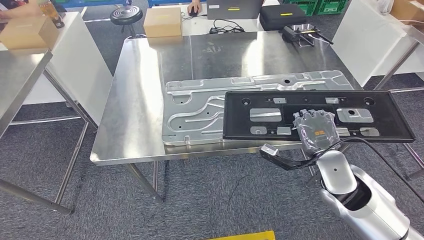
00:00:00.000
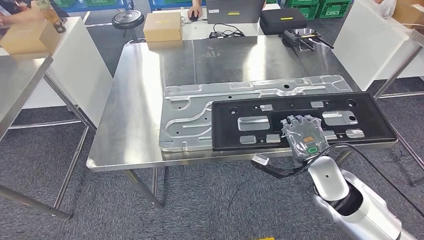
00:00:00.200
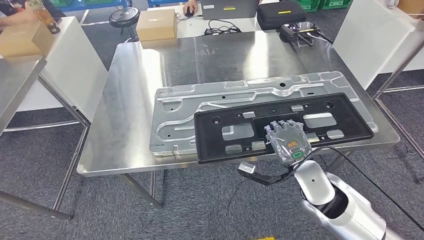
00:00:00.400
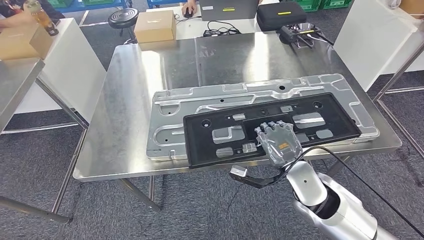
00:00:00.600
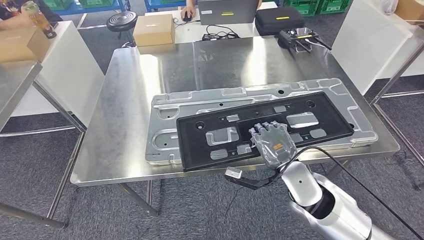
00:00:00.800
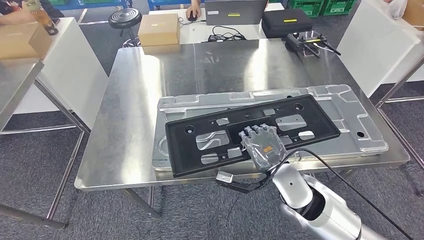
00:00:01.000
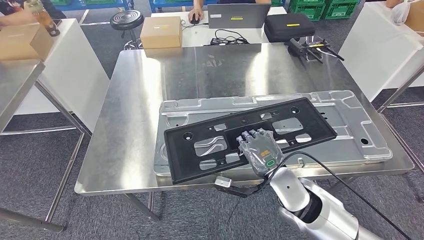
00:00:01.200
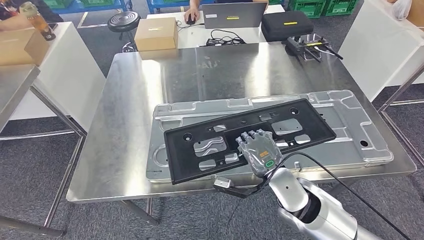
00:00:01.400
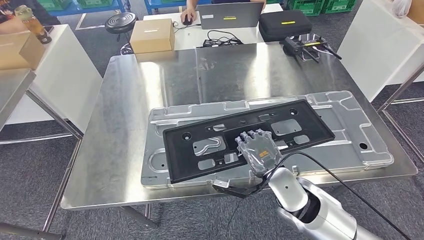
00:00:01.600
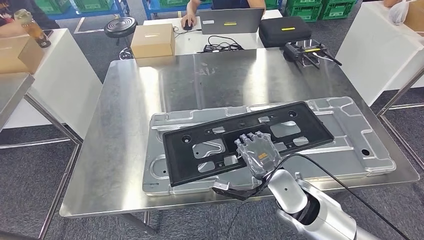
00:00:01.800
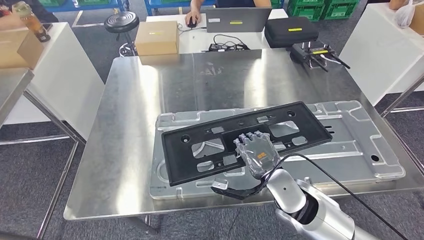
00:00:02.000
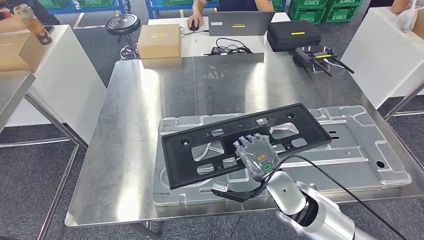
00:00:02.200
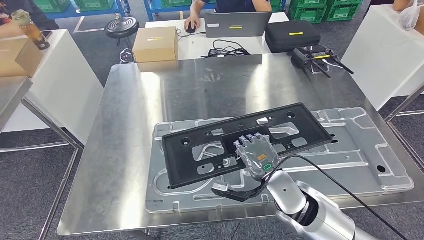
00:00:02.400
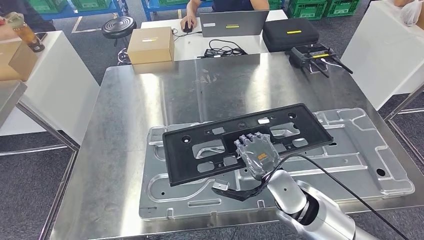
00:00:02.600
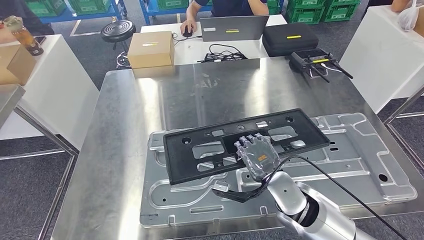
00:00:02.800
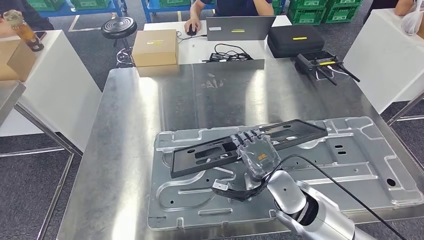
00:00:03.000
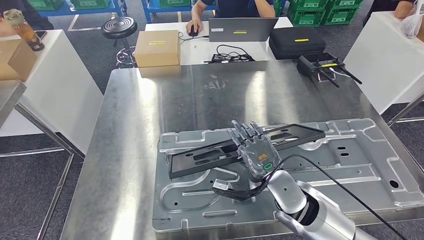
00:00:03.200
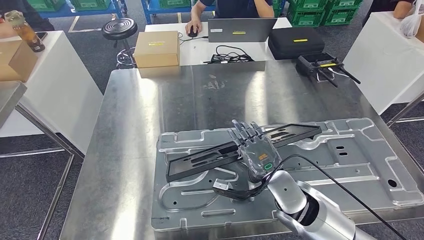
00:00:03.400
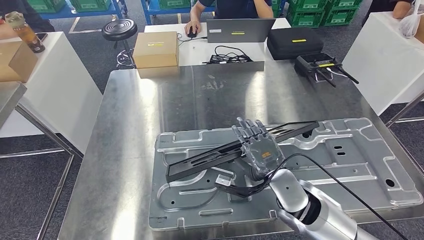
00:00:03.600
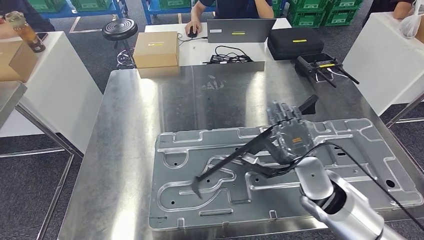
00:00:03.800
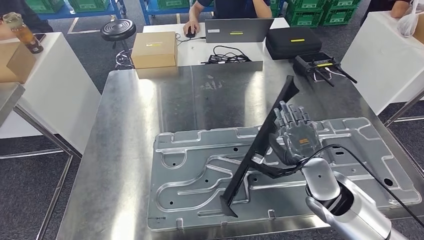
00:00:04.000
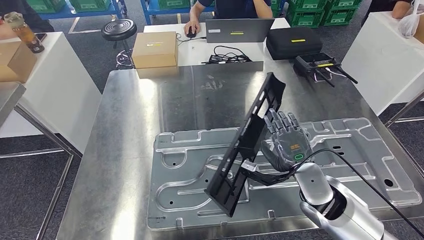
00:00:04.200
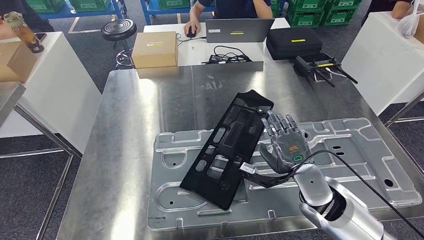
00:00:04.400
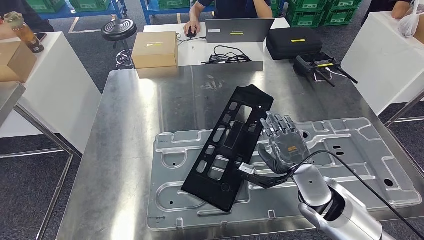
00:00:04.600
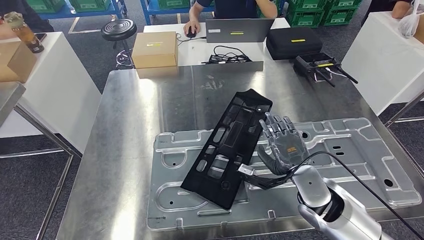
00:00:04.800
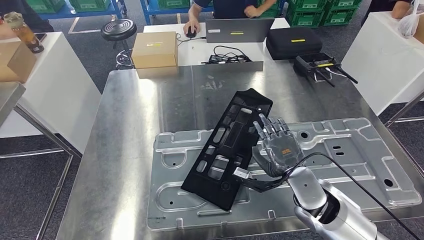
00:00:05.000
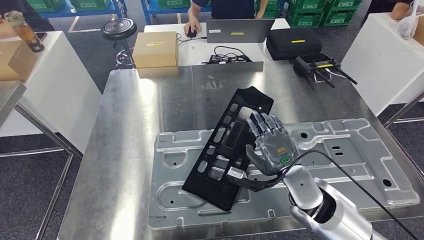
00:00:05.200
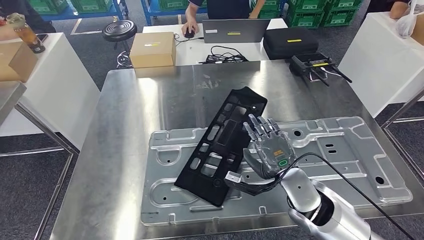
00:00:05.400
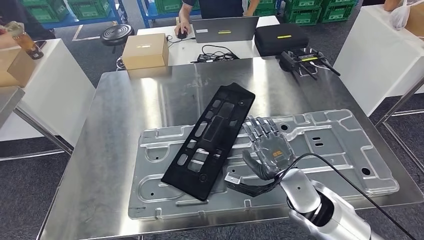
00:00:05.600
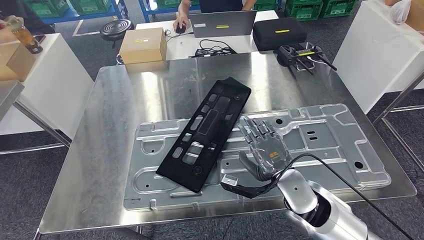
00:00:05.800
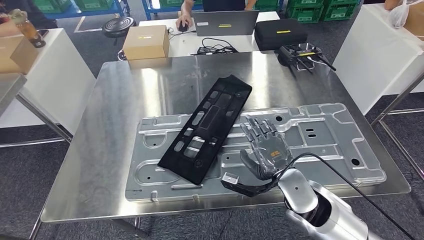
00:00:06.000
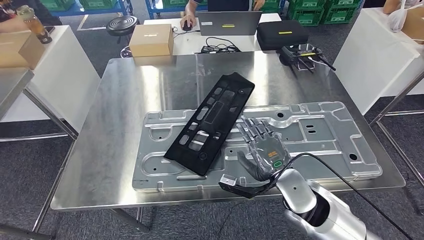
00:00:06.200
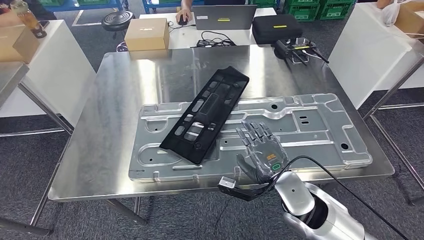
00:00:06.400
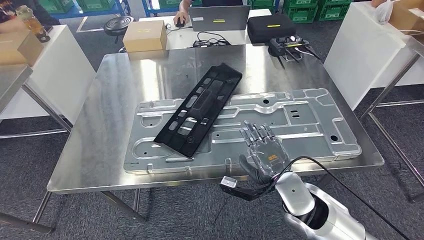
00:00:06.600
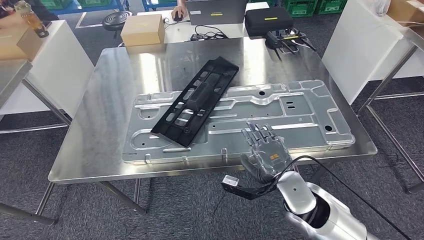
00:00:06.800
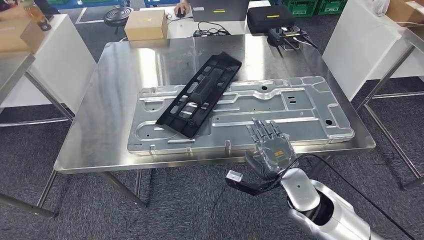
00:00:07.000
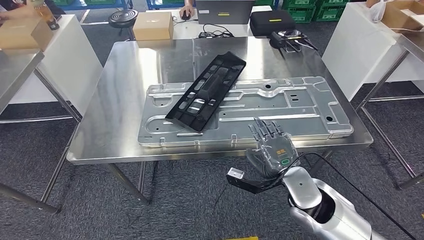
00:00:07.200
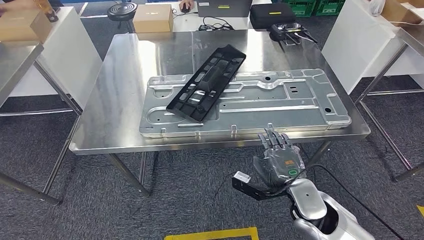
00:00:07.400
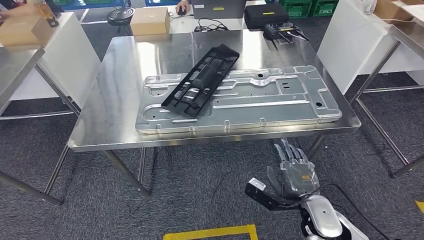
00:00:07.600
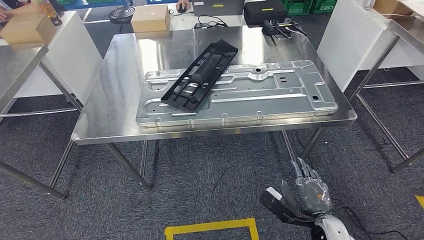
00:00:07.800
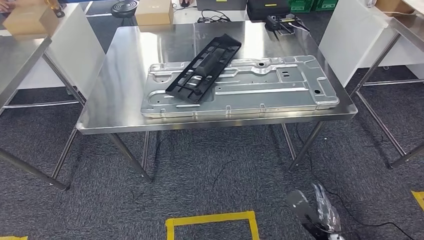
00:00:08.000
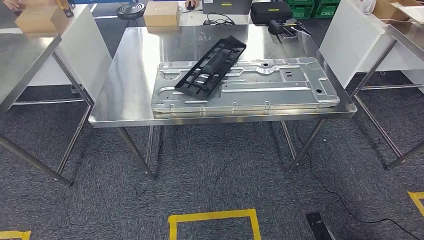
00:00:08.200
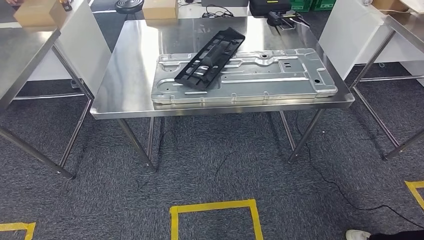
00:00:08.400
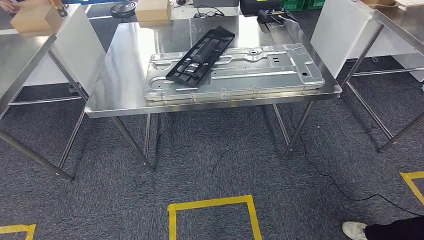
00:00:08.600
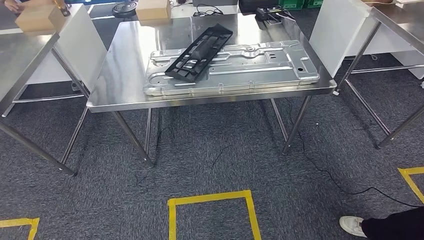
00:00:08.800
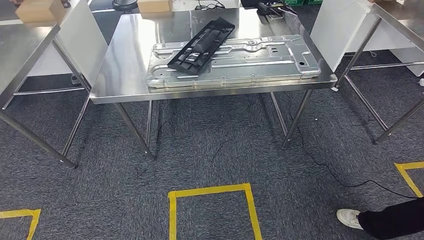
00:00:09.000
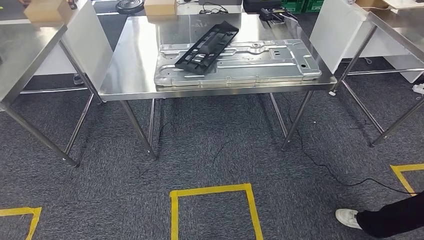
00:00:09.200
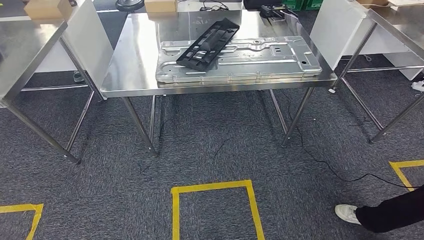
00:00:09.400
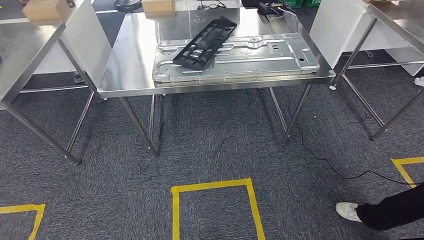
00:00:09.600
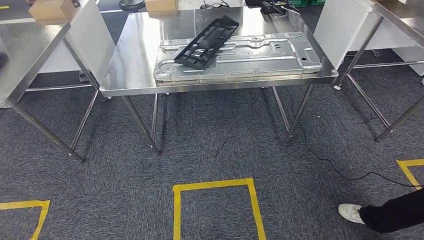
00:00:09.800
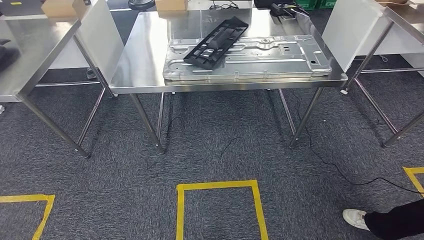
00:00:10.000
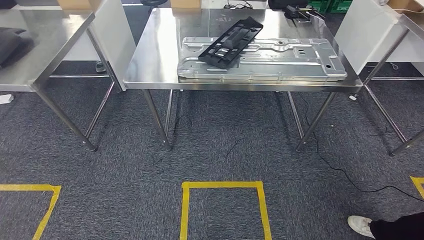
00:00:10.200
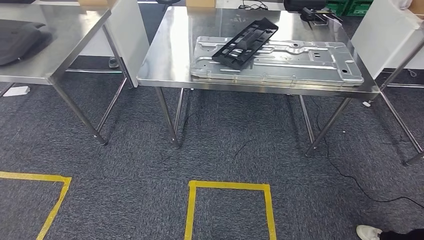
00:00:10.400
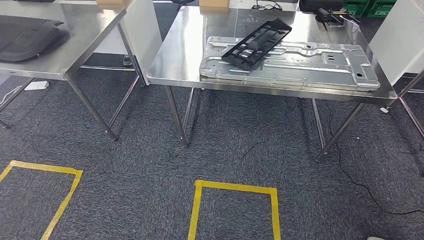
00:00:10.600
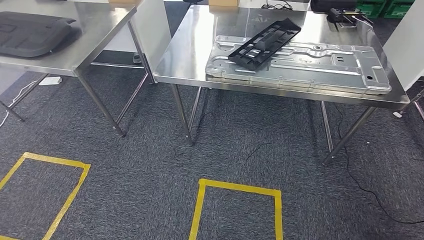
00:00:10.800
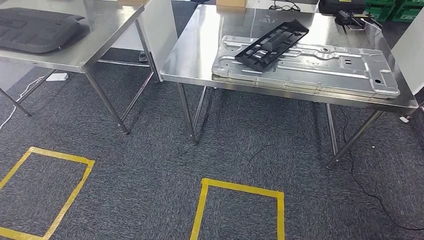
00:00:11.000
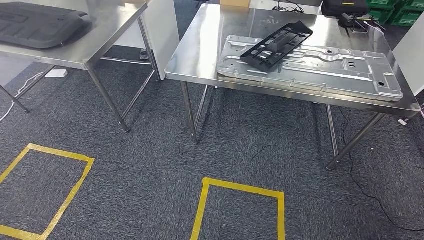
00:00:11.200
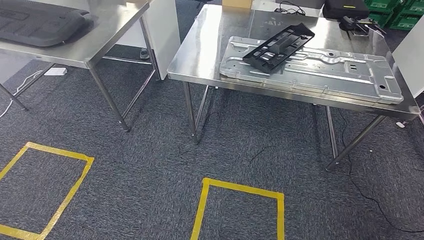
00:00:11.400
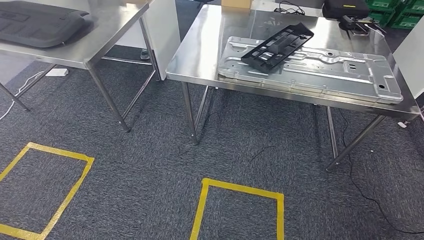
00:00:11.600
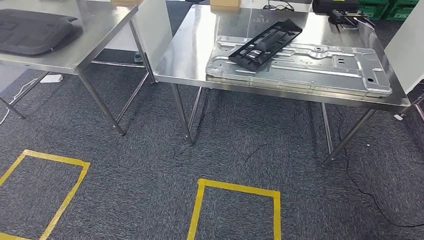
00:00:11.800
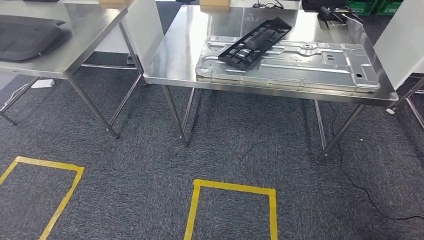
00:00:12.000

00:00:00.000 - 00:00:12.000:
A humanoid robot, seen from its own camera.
Step, 00:00:00.000 - 00:00:09.000: Insert the large material into the corresponding slot on the workbench.

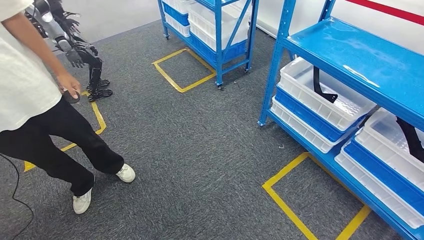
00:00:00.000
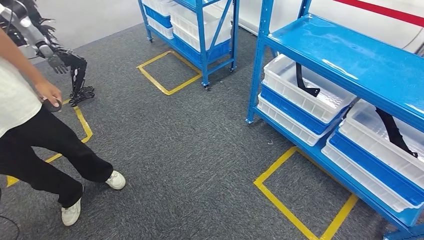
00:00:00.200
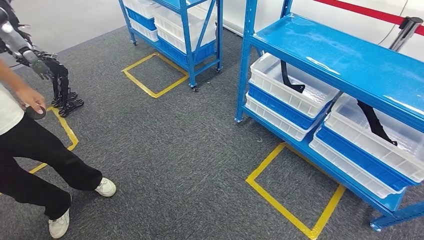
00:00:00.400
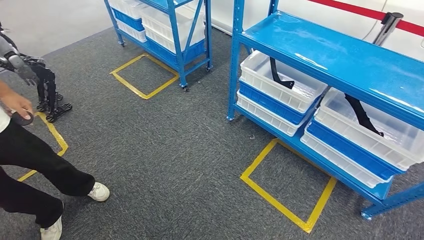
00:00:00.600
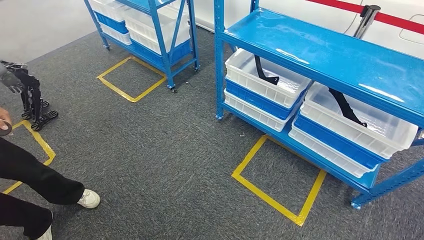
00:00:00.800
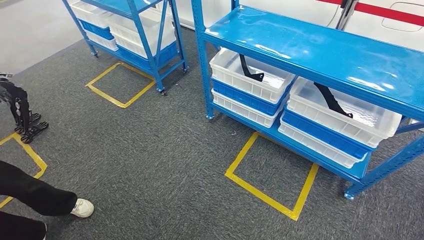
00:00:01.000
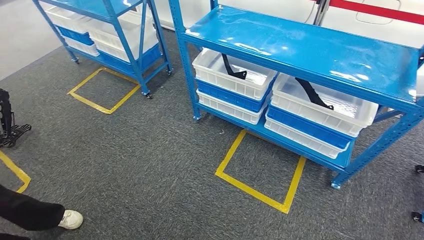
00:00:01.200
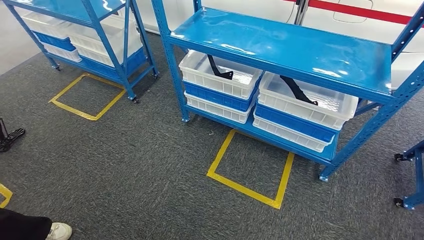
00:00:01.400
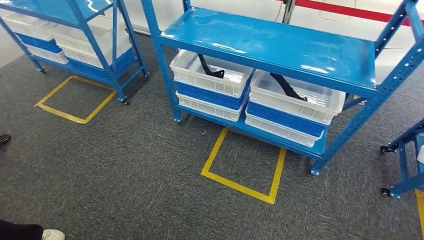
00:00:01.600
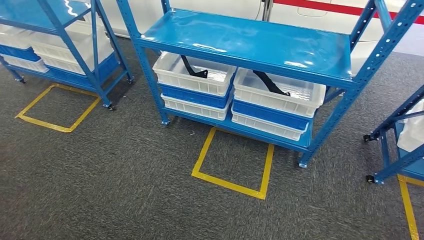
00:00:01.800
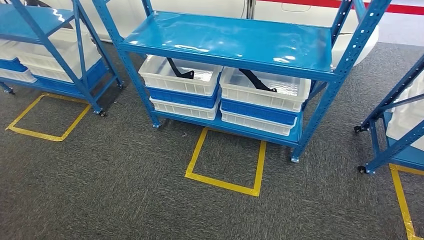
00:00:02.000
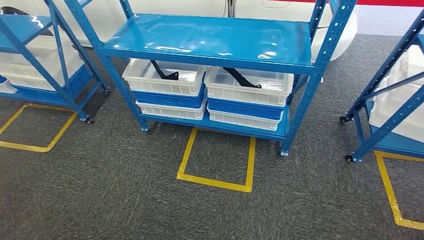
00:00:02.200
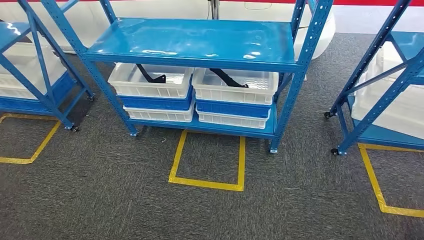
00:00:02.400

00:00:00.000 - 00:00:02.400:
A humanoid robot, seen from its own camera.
Step, 00:00:00.000 - 00:00:02.200: Move to the initial position of the shelf.
